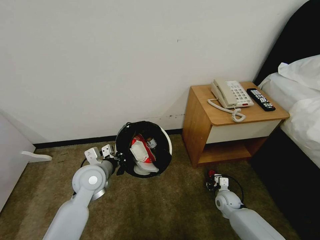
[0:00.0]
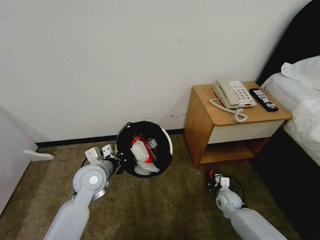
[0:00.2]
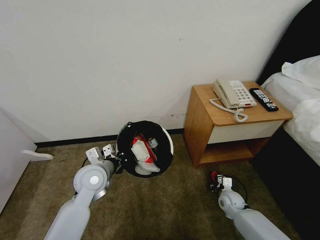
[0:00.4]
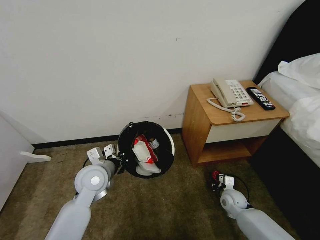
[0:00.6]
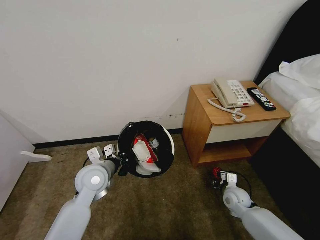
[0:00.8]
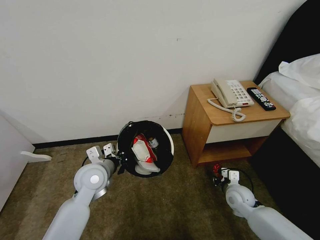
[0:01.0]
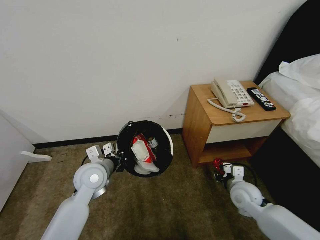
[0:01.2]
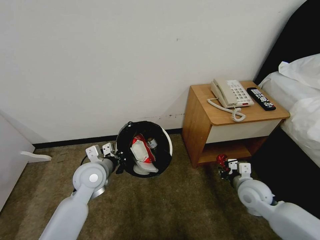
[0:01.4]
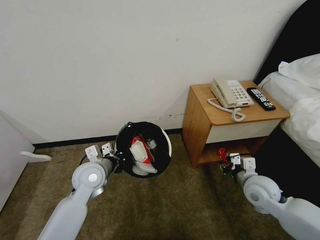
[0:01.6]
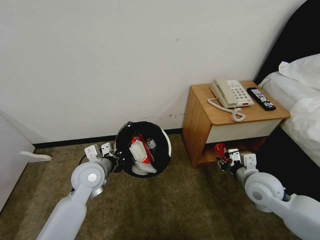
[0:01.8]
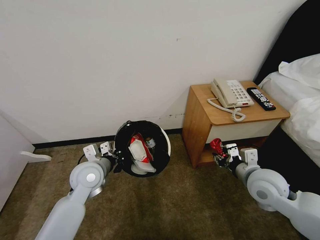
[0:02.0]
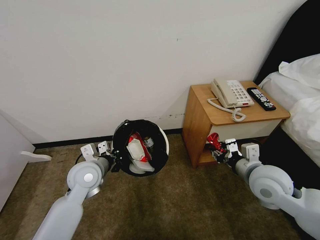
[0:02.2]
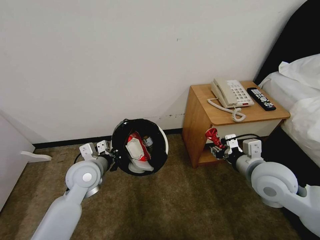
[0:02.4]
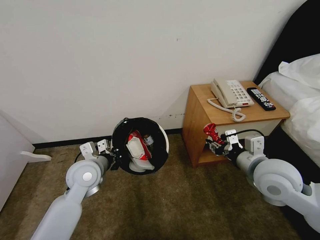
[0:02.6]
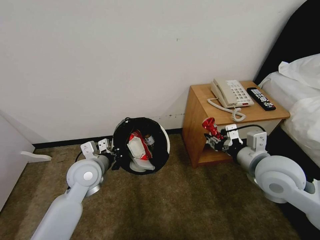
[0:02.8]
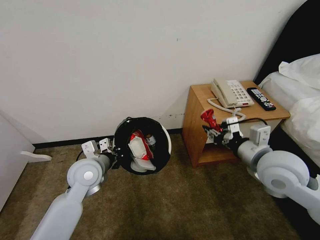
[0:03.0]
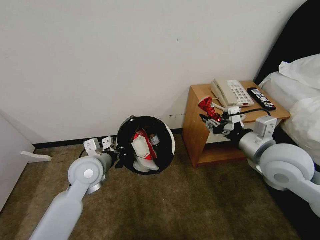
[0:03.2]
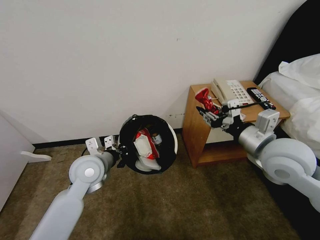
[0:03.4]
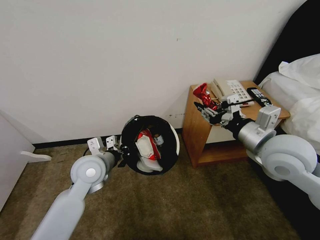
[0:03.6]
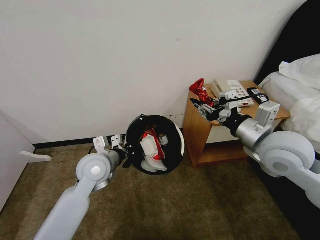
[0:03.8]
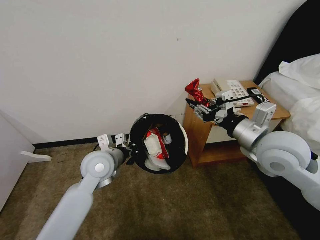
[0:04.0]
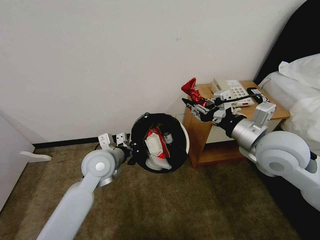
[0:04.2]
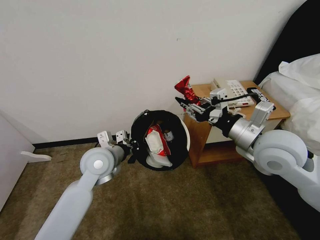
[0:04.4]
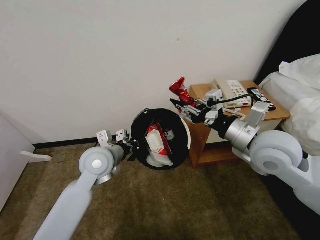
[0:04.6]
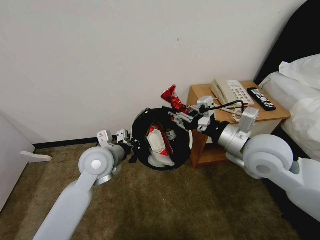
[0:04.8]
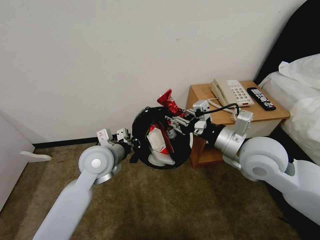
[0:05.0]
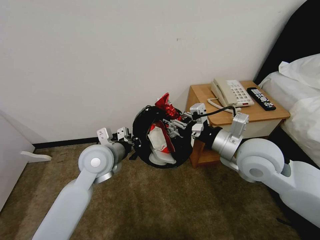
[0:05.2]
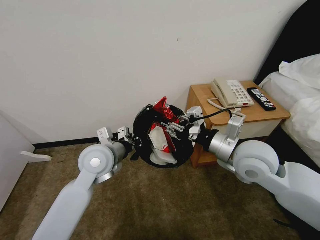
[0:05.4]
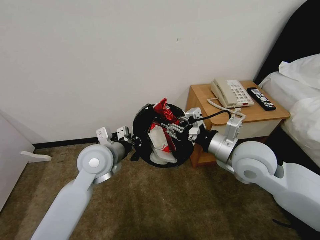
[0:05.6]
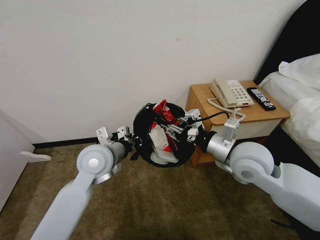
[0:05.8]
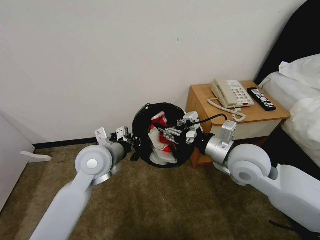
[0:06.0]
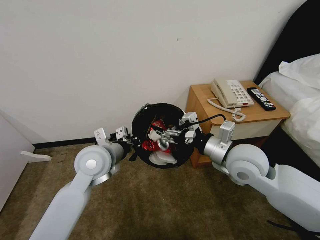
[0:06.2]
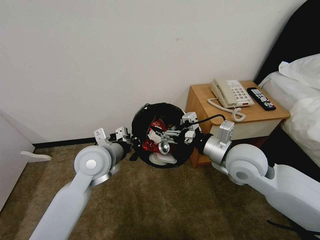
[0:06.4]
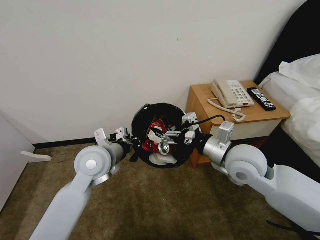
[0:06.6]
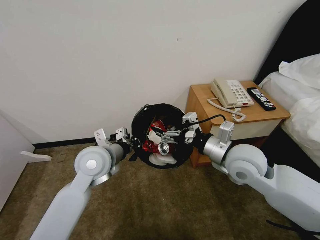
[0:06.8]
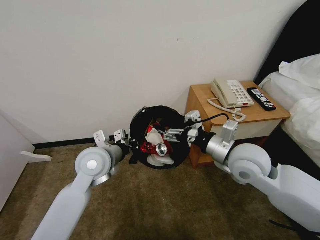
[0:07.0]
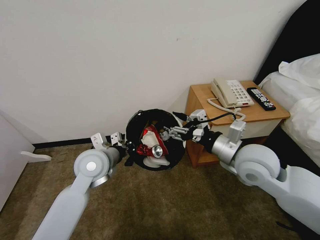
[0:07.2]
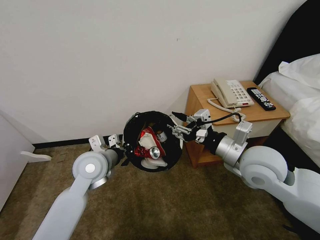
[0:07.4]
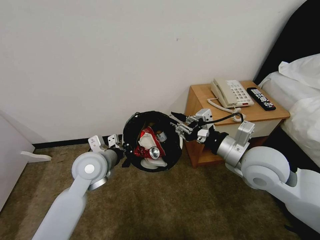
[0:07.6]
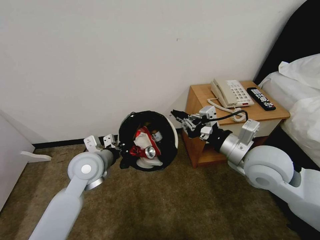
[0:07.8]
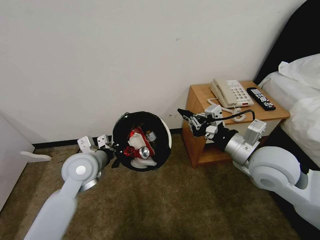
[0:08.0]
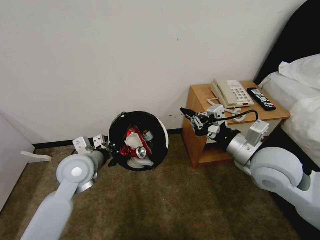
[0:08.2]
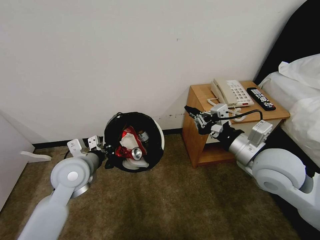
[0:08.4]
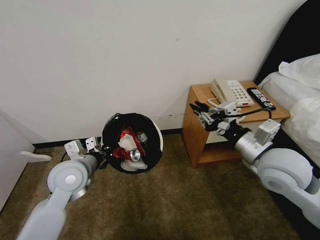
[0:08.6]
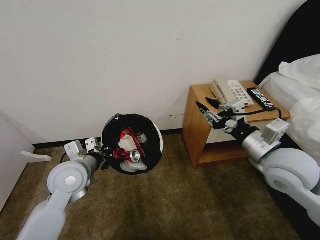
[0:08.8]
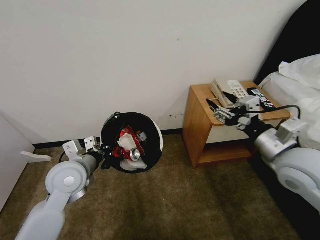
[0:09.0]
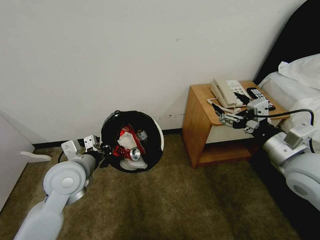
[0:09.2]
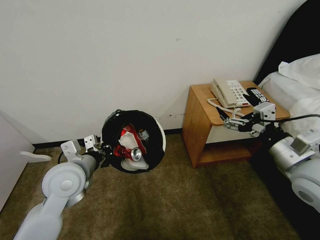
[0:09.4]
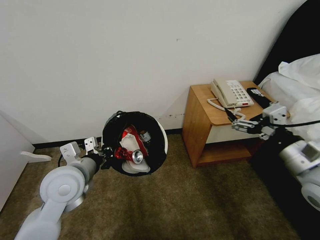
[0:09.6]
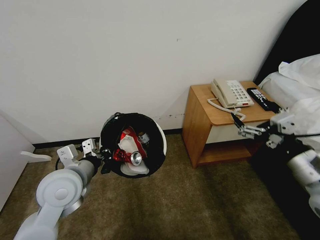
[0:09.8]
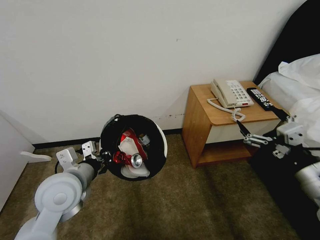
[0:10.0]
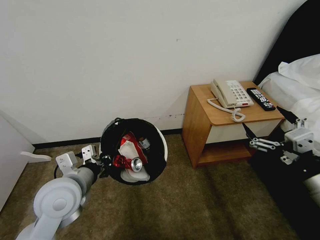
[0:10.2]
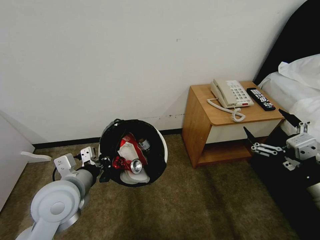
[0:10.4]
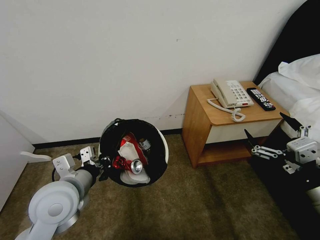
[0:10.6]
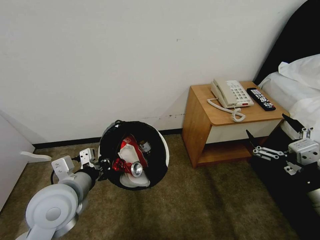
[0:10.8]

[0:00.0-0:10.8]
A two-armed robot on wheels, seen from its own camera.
Task of the whole recording: Pick up the trash bin, then pick up the garbage from the floor and place it into the trash bin.
0:00.0 to 0:01.6: The right gripper goes about 20 cm upward.
0:01.6 to 0:03.0: The right gripper shifts approximately 15 cm upward.
0:03.0 to 0:04.6: The left gripper ends up approximately 5 cm from where it was; the right gripper changes place by roughly 5 cm.
0:04.6 to 0:06.2: The right gripper travels downward by some 5 cm, and opens up.
0:06.2 to 0:07.8: The right gripper closes up.
0:07.8 to 0:09.2: The right gripper travels to the right by approximately 10 cm, and opens up. The left gripper changes place by approximately 5 cm.
0:09.2 to 0:10.8: The right gripper moves backward, some 10 cm, while the left gripper goes about 5 cm backward.
